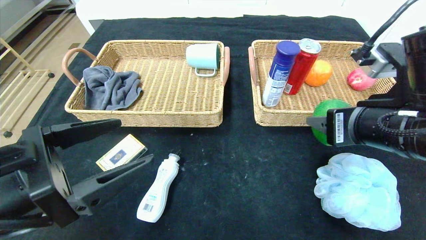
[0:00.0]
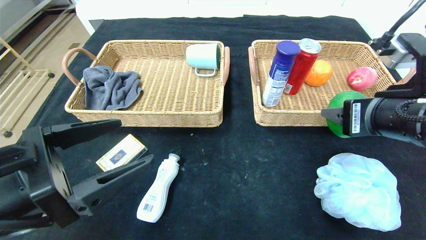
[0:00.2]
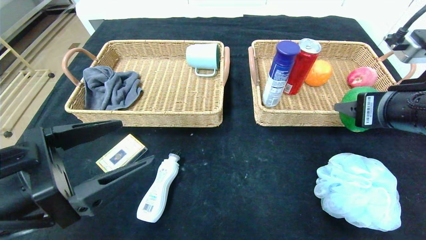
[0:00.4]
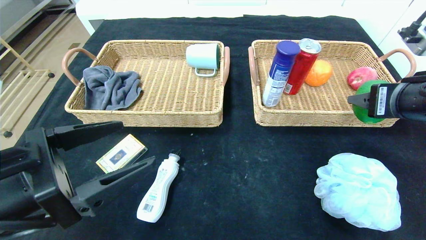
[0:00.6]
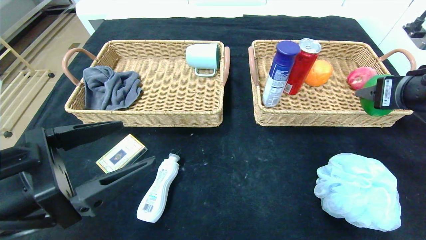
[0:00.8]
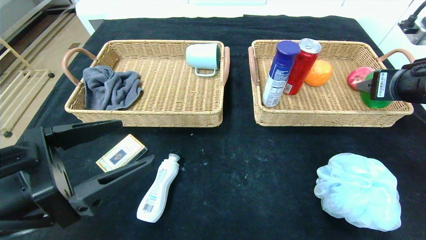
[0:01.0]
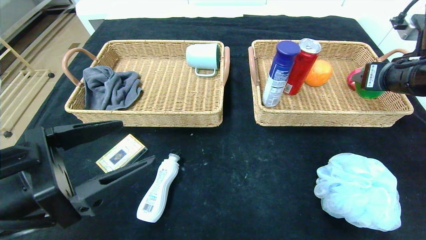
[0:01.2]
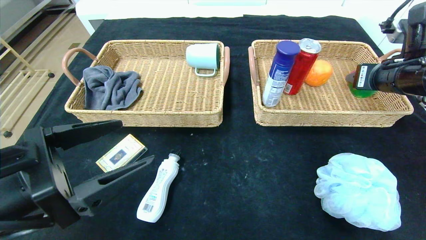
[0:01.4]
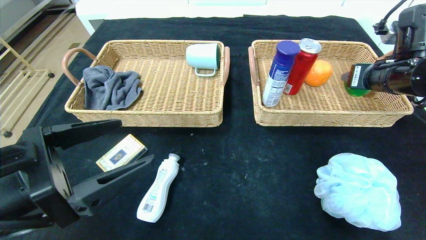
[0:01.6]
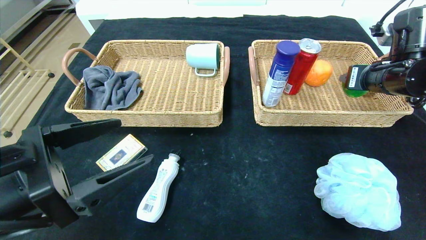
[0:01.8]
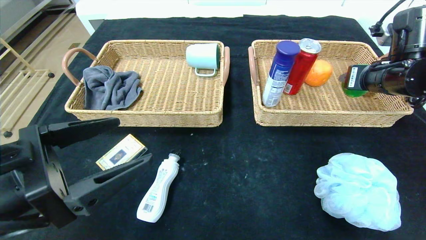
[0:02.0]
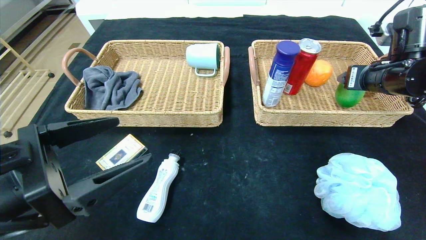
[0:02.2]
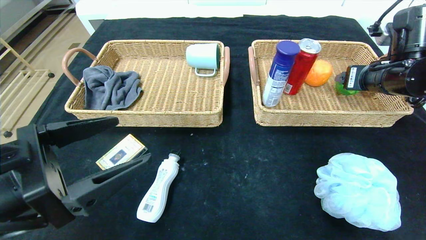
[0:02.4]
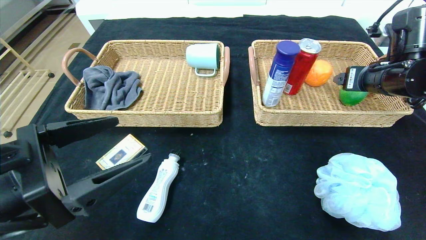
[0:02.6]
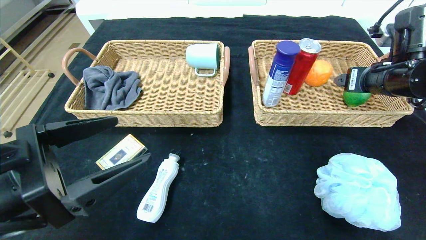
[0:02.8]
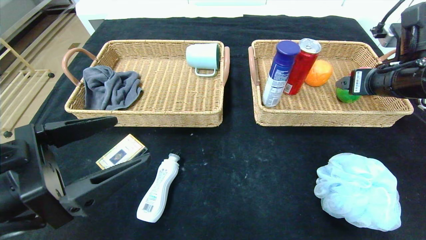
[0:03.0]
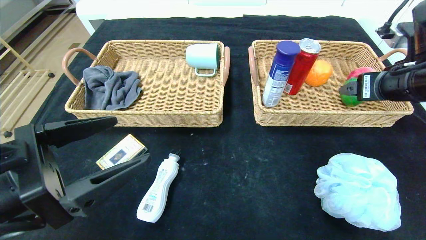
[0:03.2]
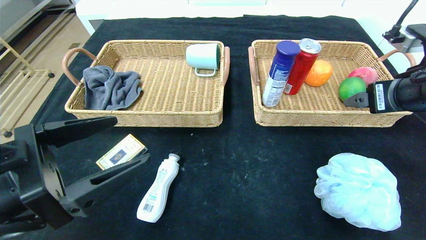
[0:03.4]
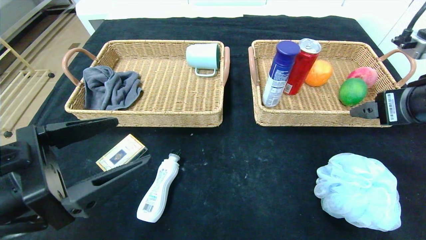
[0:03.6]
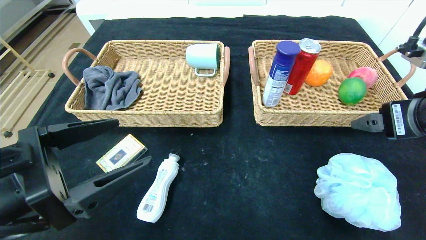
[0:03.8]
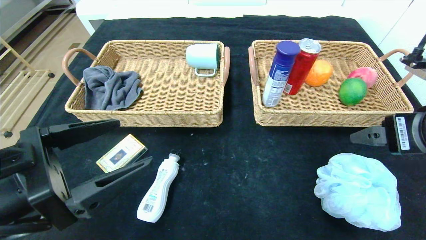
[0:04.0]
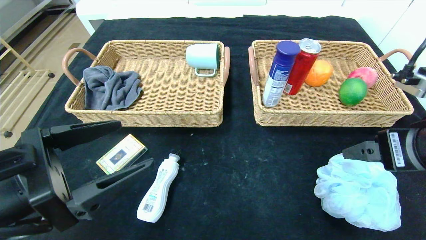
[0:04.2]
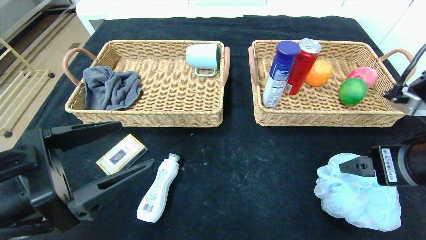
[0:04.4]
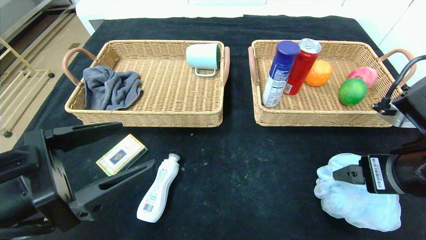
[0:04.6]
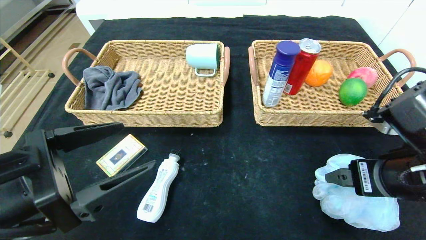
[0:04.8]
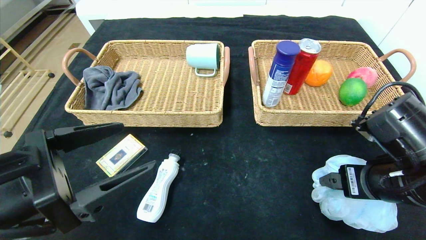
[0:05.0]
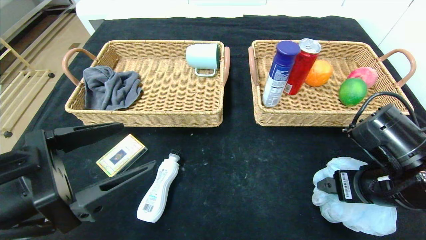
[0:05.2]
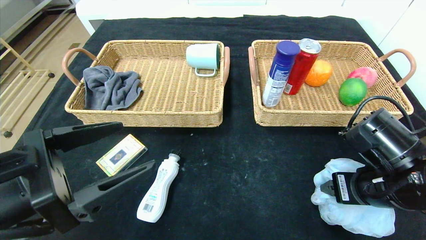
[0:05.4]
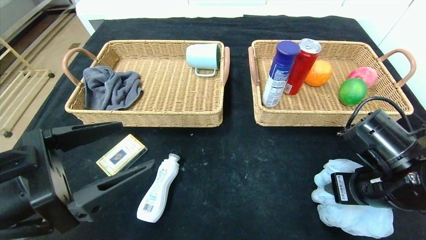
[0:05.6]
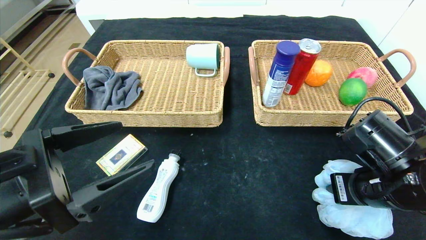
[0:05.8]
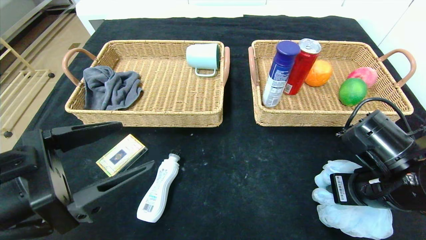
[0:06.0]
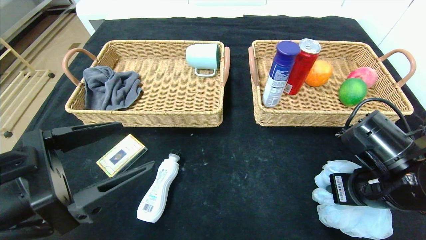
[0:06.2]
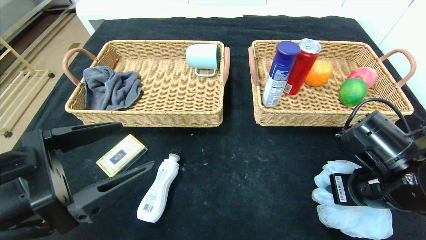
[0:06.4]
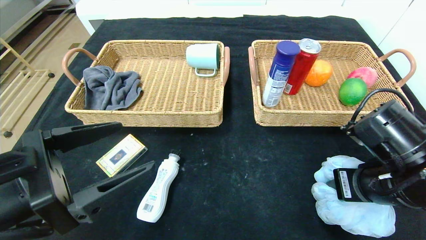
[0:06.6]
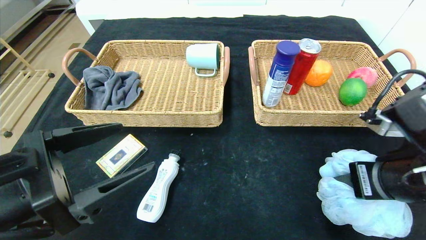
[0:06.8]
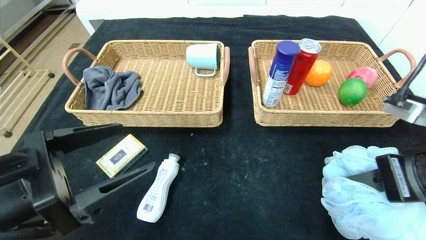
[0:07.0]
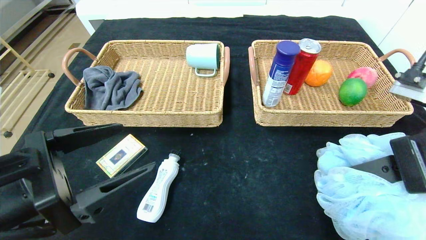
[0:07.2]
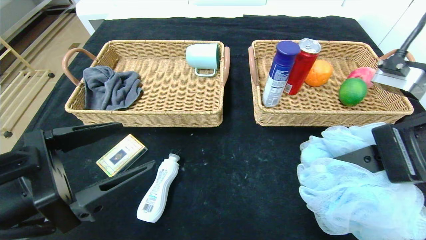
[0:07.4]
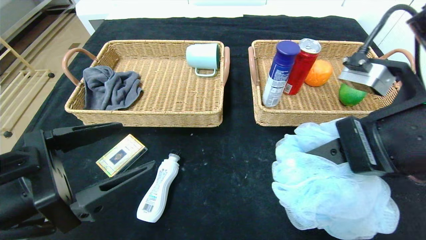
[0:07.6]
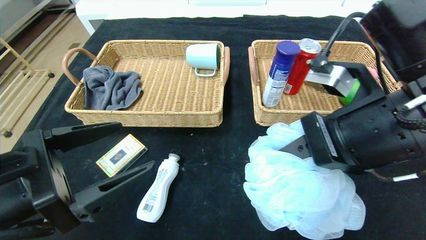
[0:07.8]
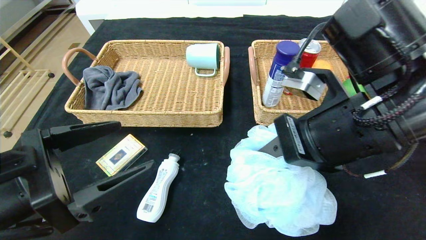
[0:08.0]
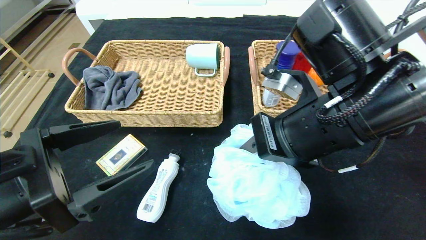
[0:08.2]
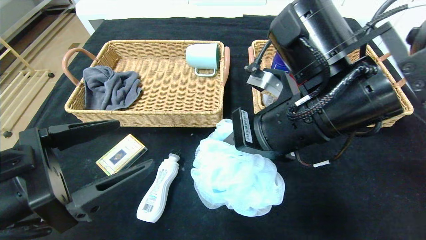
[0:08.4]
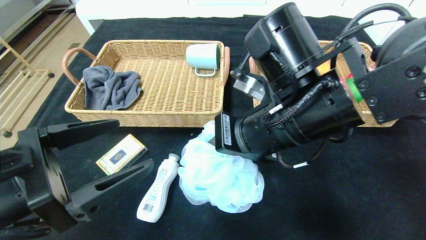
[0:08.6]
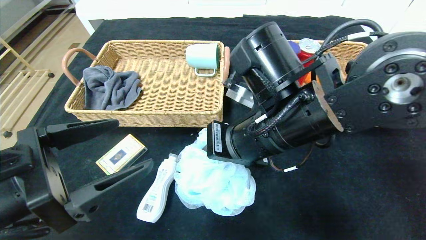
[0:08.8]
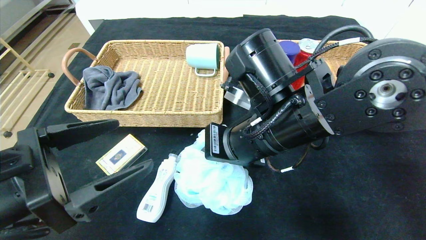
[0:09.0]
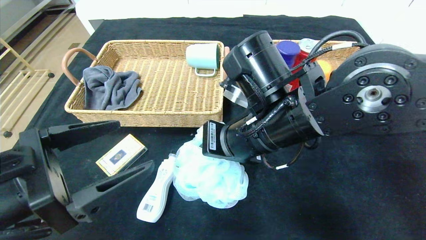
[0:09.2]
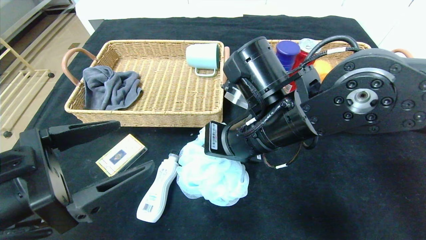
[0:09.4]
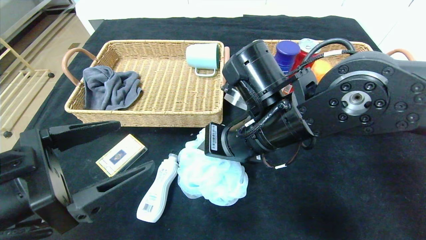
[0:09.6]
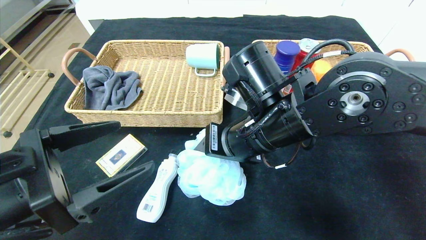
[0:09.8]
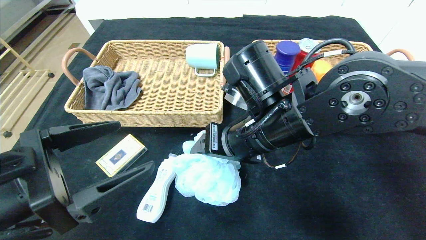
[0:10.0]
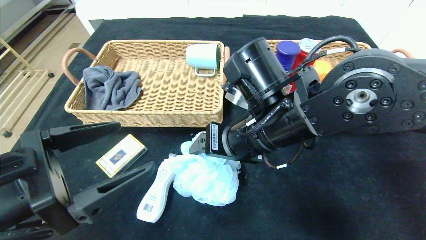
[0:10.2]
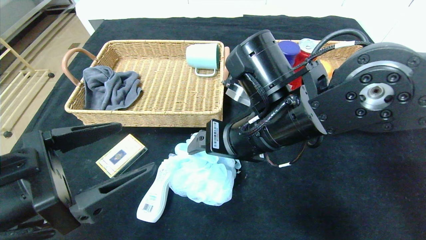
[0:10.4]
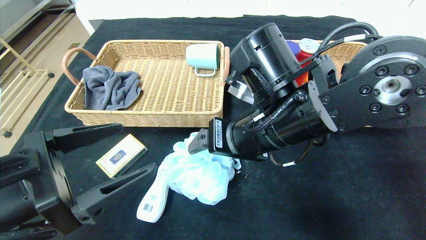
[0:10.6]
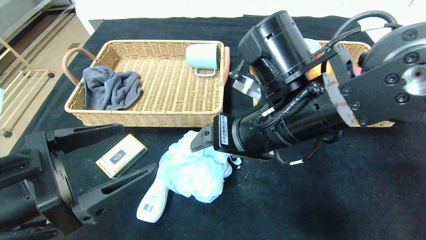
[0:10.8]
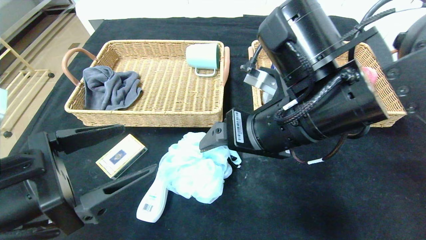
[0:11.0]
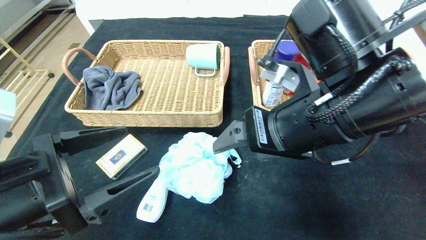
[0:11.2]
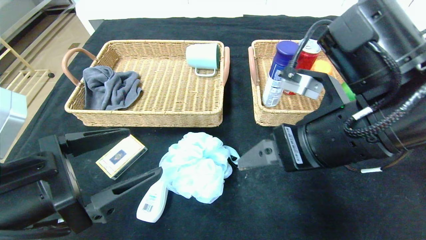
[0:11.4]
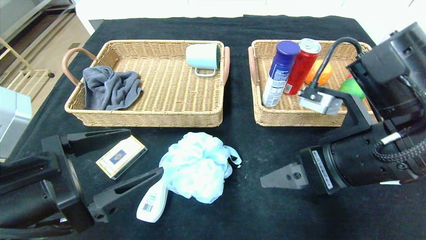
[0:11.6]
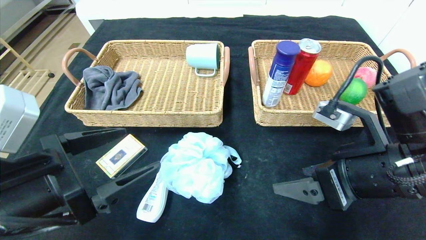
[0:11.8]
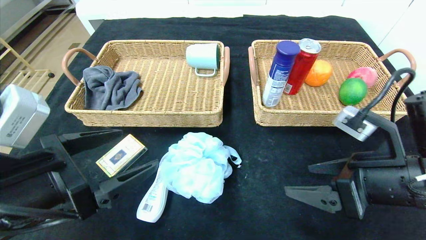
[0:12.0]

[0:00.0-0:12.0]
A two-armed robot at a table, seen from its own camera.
Step, 0:00.0 to 0:02.4: Grasp the green lemon and put it in the right basket.
Step, 0:02.6 to 0:11.0: Place the bath ball in the center of the table.
0:00.0 to 0:01.6: The right gripper shifts about 15 cm forward and to the right.
0:01.6 to 0:03.0: The right gripper opens its fingers.
0:03.0 to 0:04.4: The right gripper is displaced backward by some 15 cm.
0:04.4 to 0:06.0: The right gripper moves downward, about 10 cm, and closes its fingers.
0:06.0 to 0:07.6: The right gripper is displaced upward by approximately 10 cm.
0:07.6 to 0:09.0: The right gripper shifts some 15 cm to the left and forward.
0:09.0 to 0:10.4: The right gripper opens its fingers.
0:10.4 to 0:12.0: The right gripper goes some 15 cm to the right.

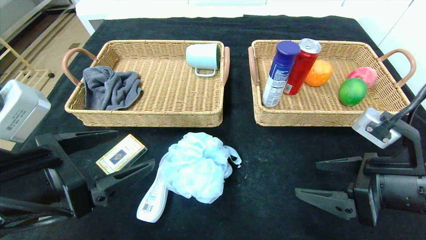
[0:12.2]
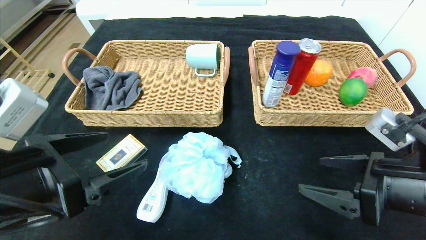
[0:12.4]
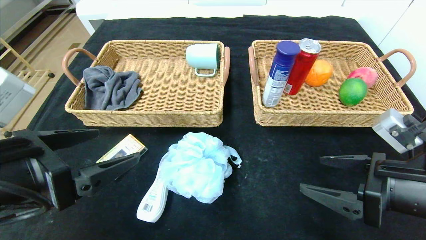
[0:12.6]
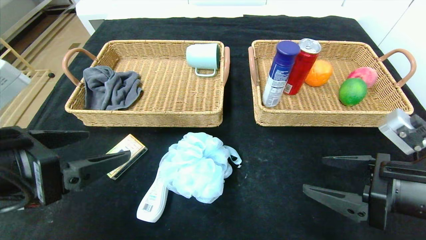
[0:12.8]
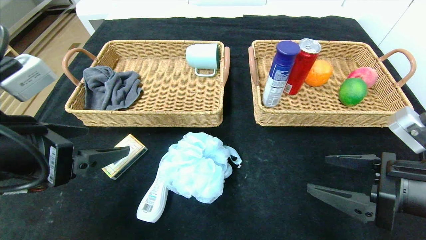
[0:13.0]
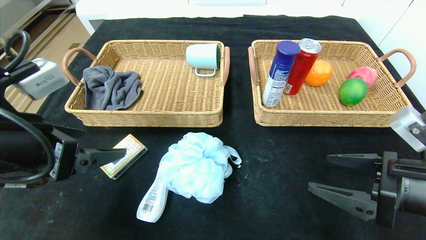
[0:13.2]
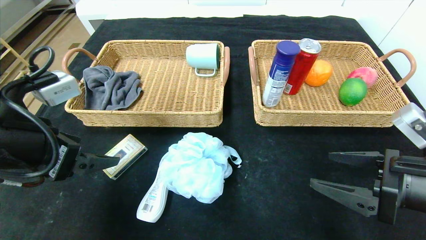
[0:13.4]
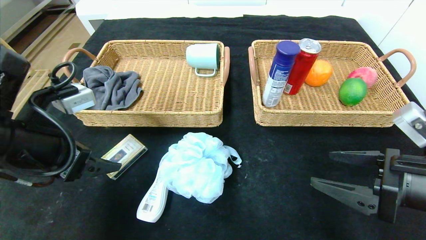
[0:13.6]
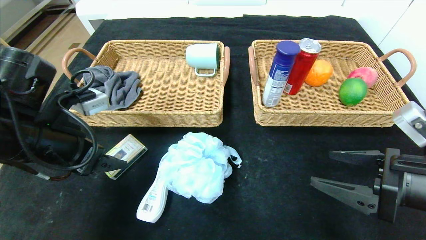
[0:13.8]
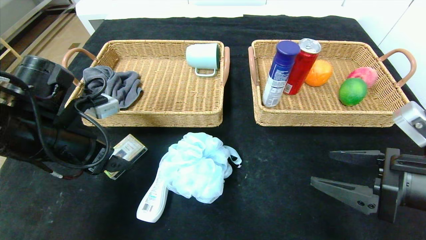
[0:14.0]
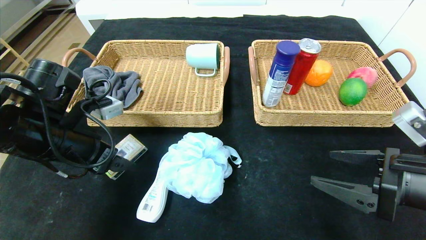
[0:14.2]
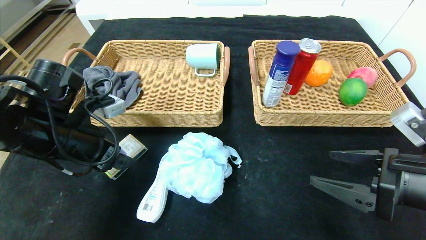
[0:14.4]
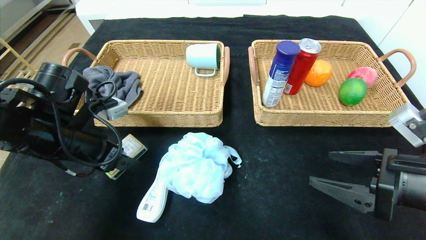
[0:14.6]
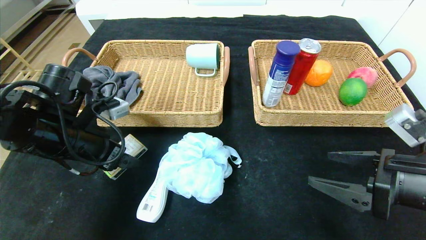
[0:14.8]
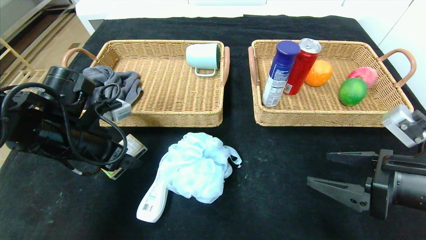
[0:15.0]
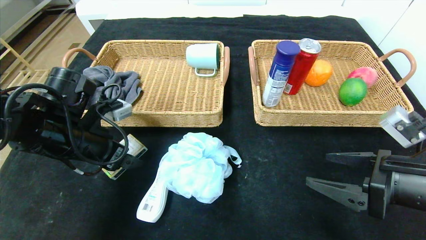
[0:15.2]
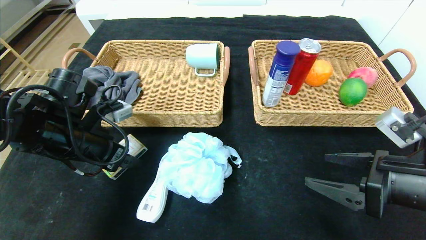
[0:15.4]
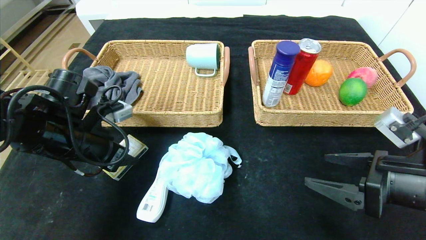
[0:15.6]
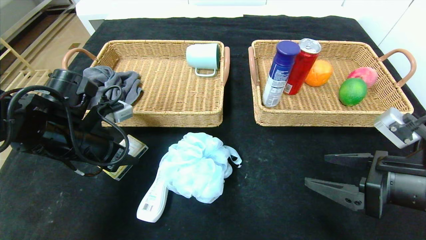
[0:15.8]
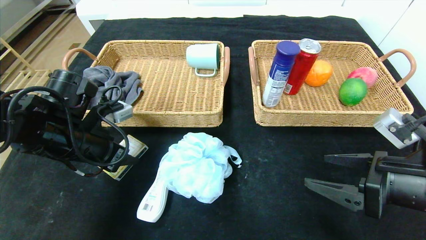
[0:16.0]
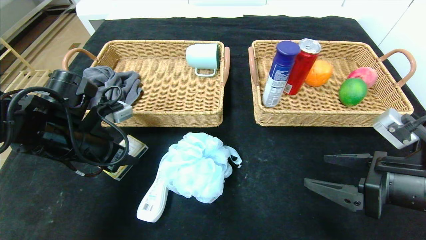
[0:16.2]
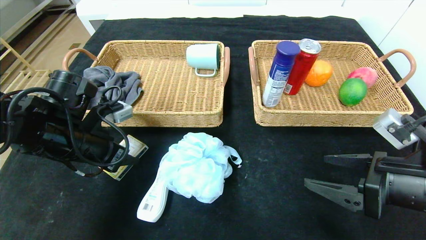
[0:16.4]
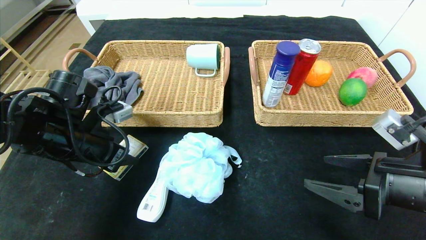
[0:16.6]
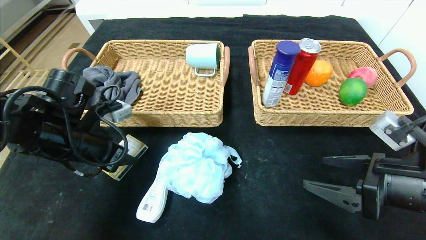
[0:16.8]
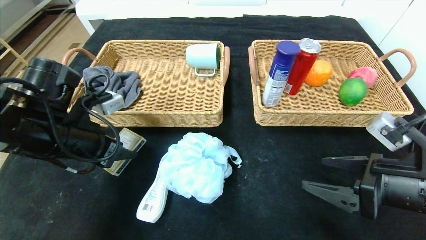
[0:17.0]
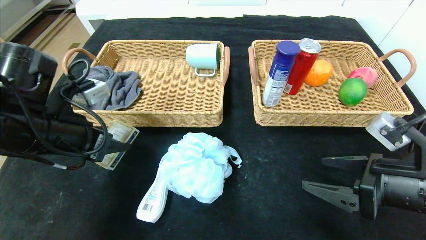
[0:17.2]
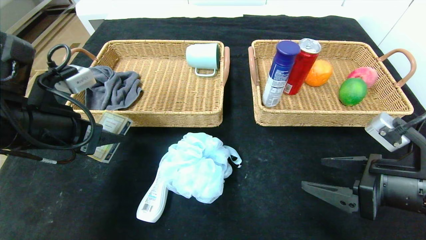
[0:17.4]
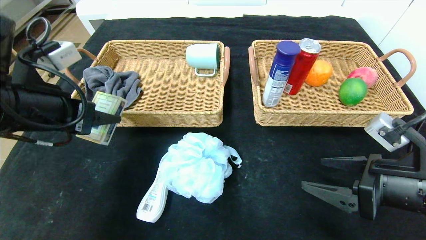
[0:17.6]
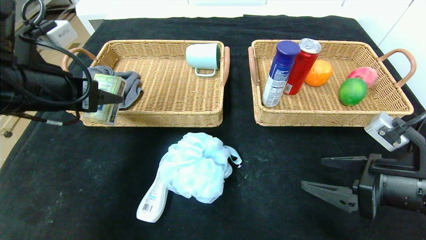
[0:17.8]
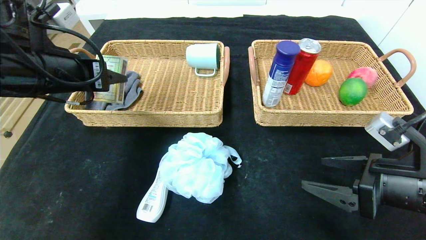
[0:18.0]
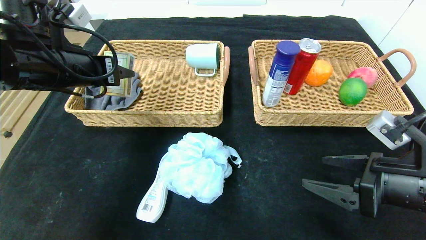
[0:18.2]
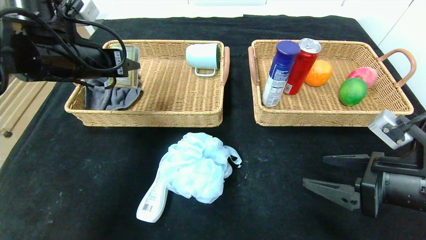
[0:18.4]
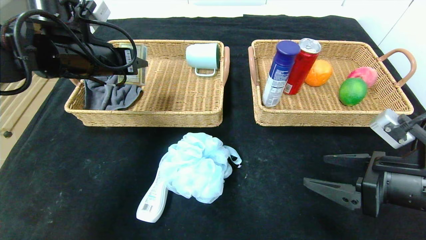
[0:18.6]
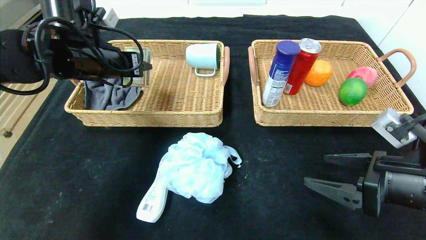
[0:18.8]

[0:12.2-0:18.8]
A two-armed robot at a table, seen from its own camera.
0:12.2 to 0:13.8: The left gripper shifts approximately 10 cm forward.
0:13.8 to 0:15.4: The left gripper moves some 5 cm.
0:15.4 to 0:17.2: The left gripper moves roughly 5 cm.
0:17.2 to 0:18.8: The left gripper moves forward and upward, about 15 cm.
